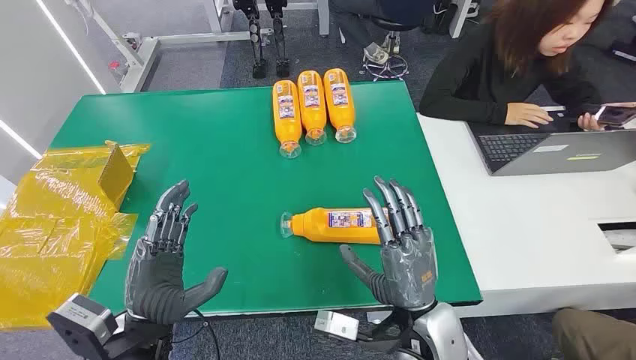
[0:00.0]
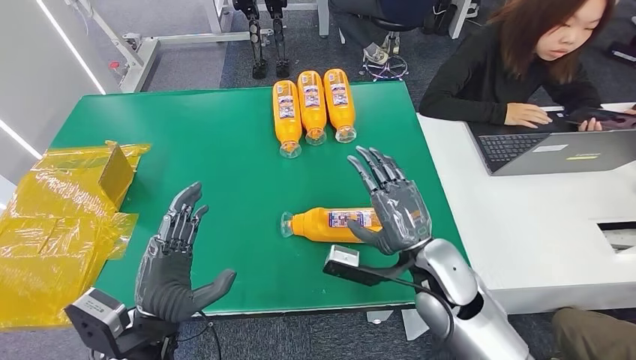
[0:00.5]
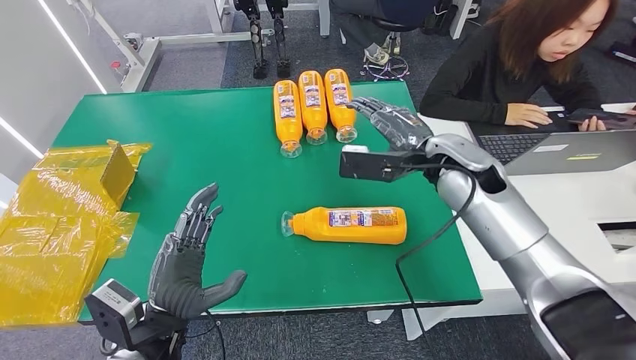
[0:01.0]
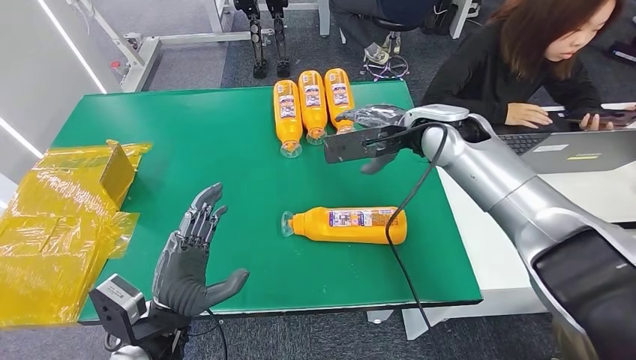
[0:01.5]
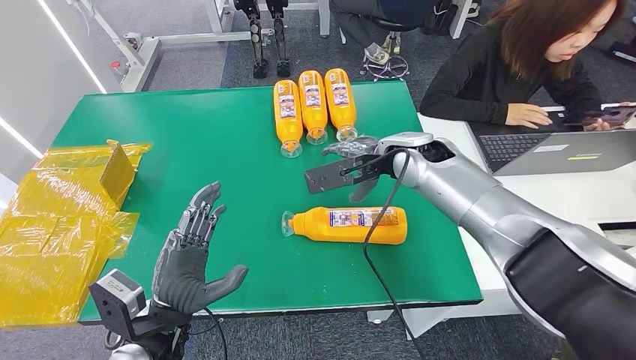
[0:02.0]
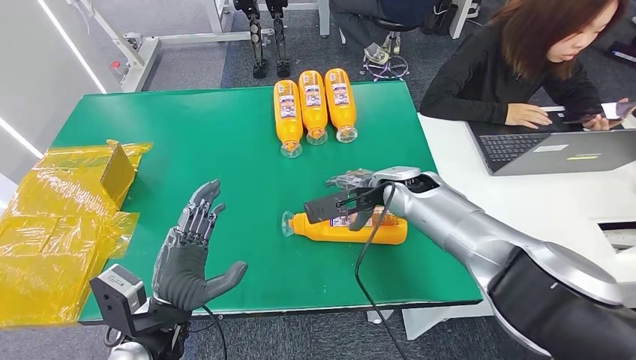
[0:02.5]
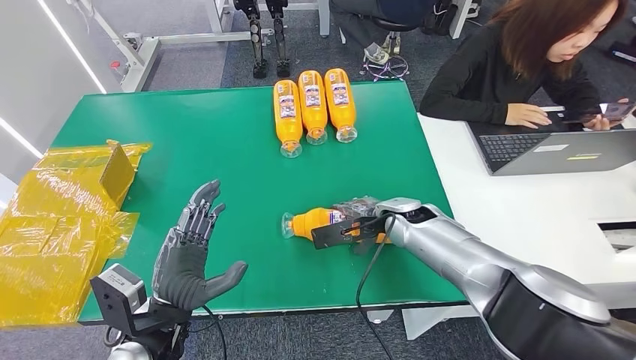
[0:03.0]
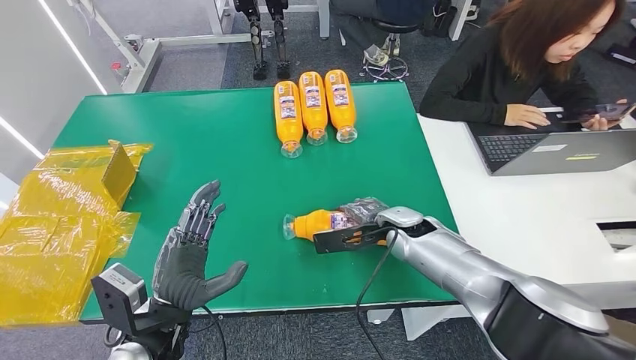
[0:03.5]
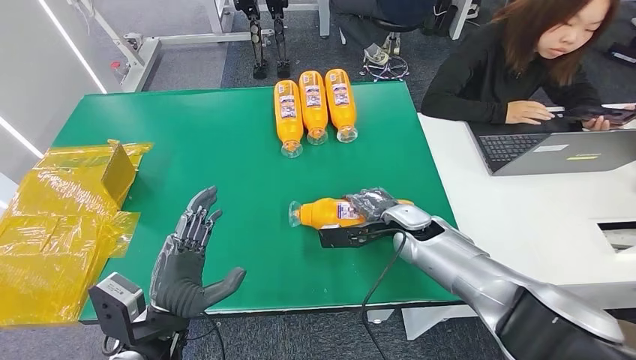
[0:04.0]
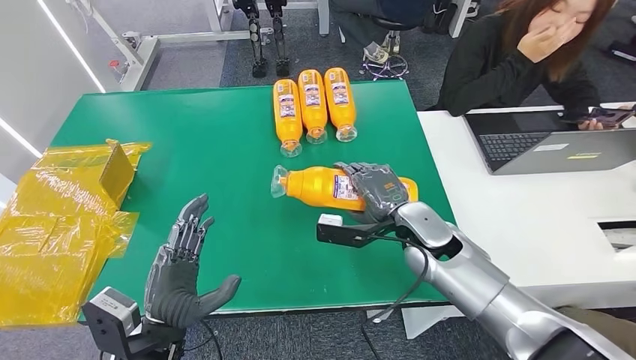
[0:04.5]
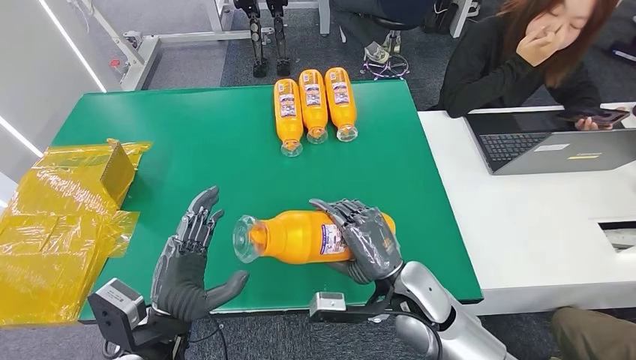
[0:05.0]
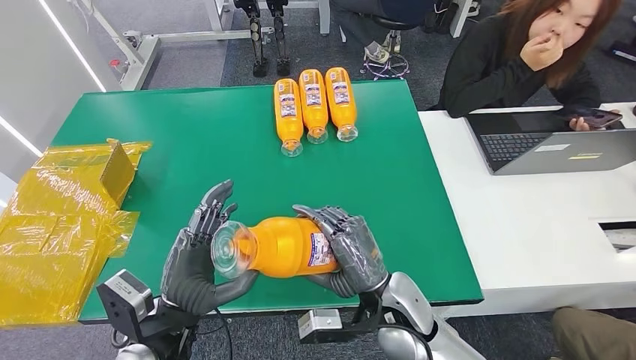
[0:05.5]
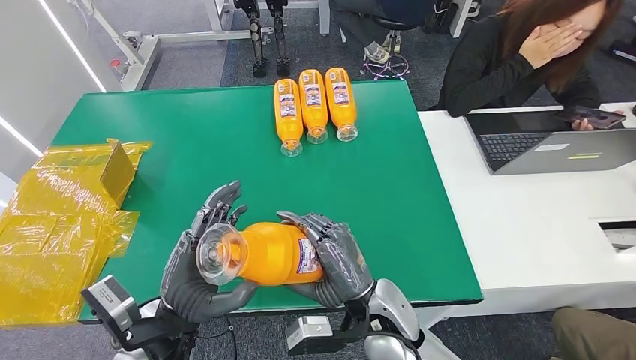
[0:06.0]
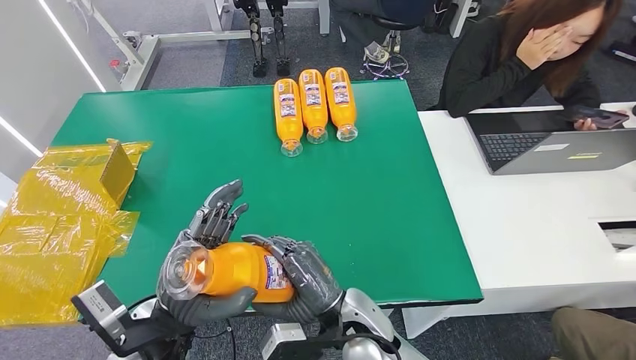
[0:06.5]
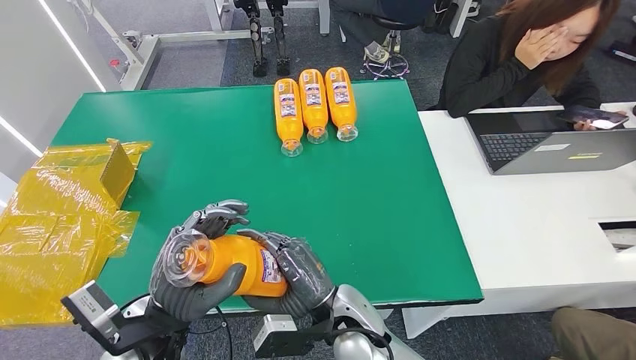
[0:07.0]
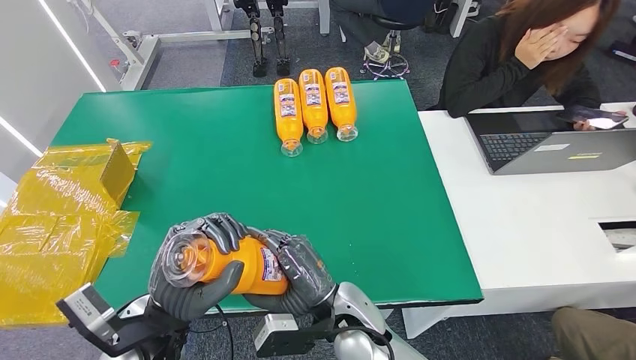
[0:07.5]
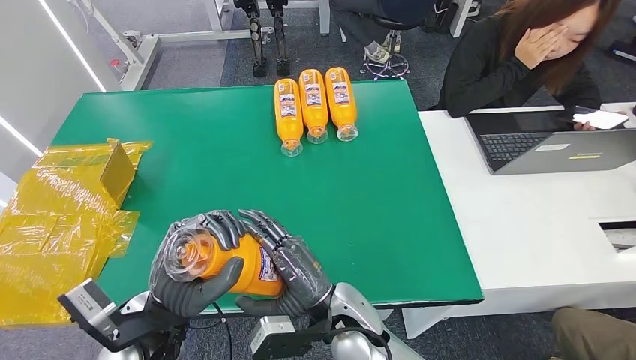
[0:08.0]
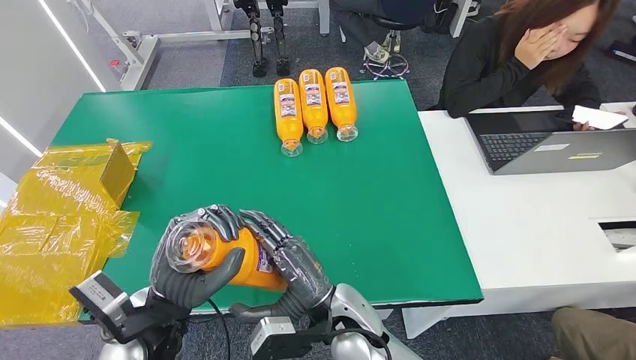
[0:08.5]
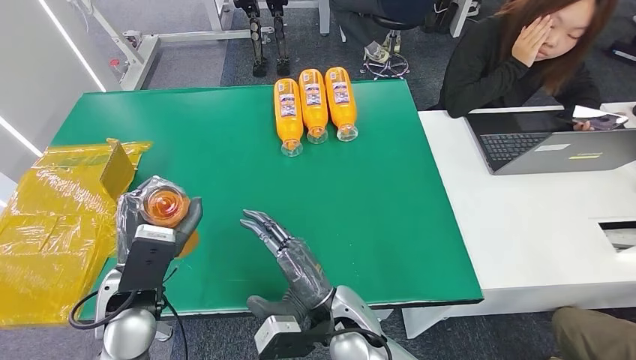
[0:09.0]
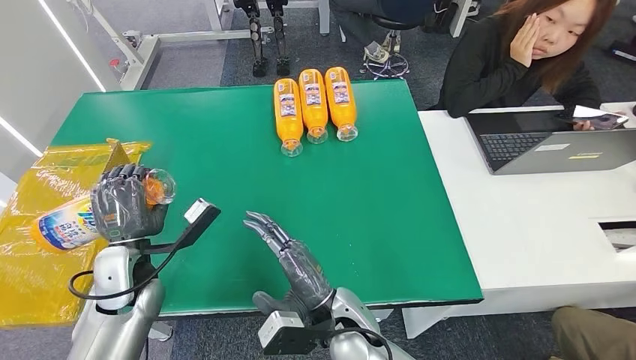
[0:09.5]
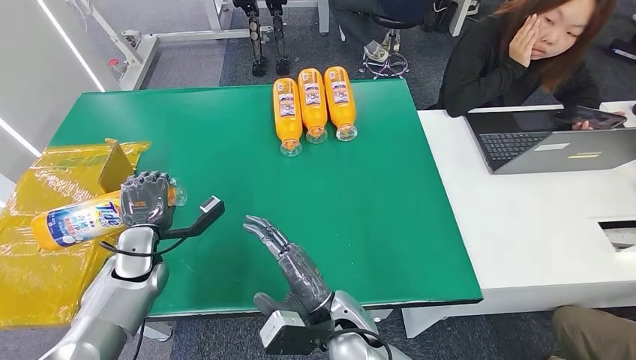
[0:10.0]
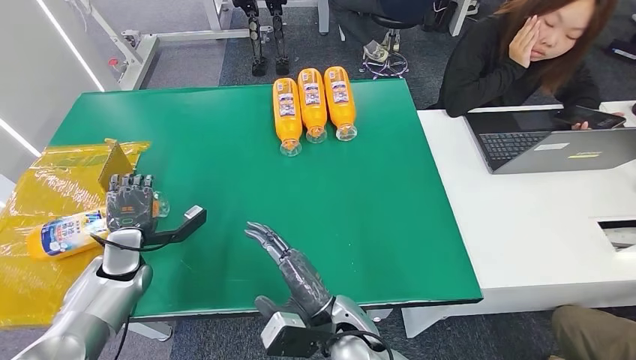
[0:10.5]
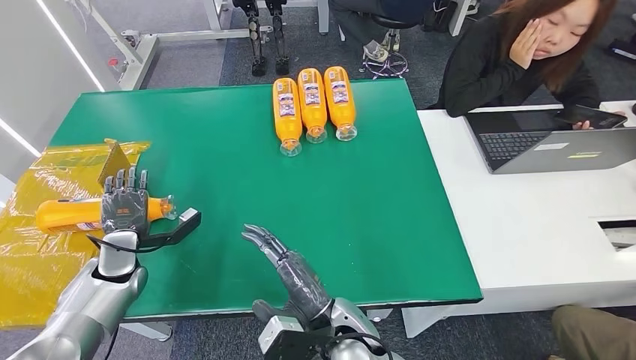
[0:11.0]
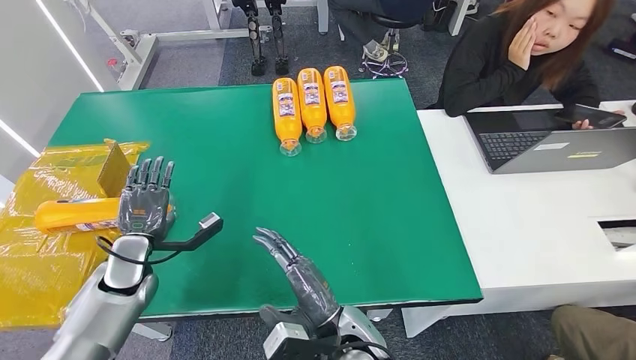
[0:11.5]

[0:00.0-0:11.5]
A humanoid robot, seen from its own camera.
Step, 0:00.0 to 0:05.0: Pick up the bottle from the table.
Step, 0:05.5 to 0:11.5: Turn the bottle to the front side.
0:02.0 to 0:04.0: The right hand travels downward by roughly 15 cm.
0:06.0 to 0:07.5: The right hand shifts approximately 5 cm to the left.
0:07.5 to 0:09.5: The left hand travels to the left and forward by about 15 cm.
0:09.5 to 0:11.5: The left hand travels to the left by some 5 cm.
